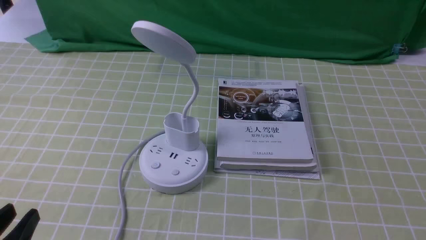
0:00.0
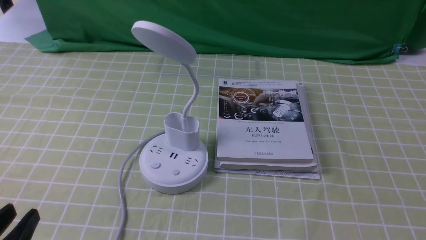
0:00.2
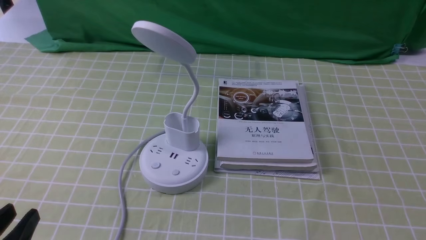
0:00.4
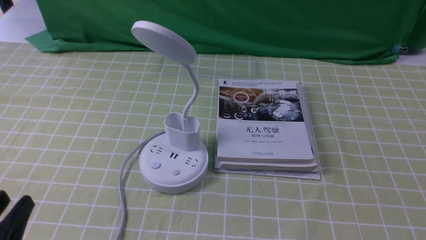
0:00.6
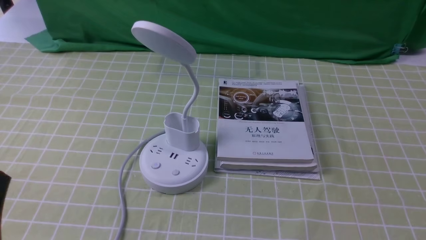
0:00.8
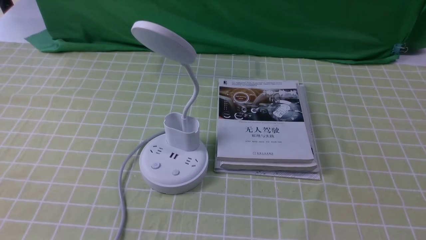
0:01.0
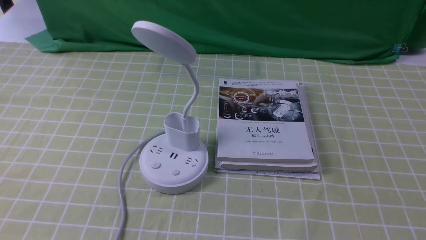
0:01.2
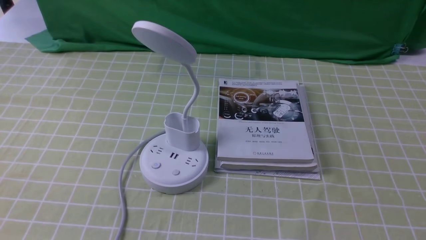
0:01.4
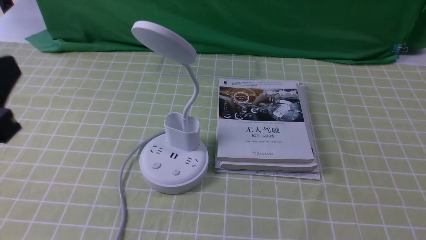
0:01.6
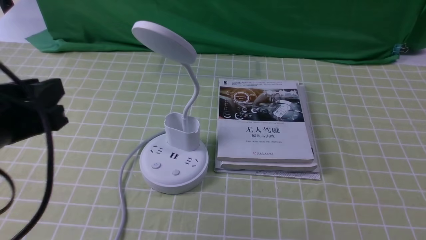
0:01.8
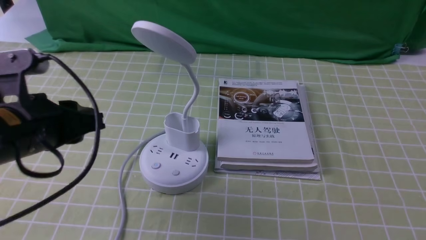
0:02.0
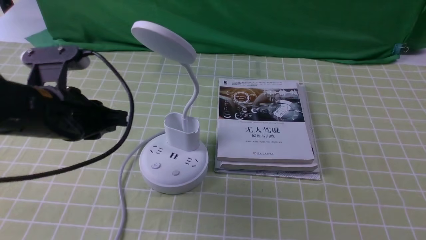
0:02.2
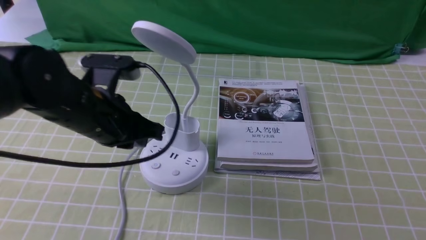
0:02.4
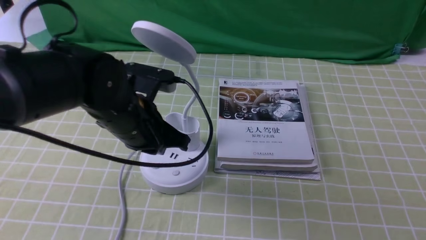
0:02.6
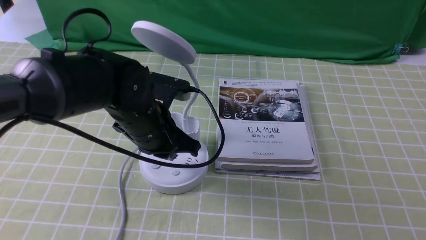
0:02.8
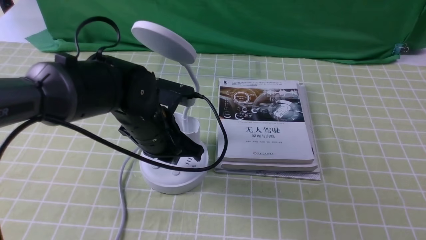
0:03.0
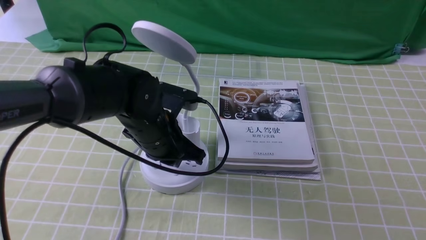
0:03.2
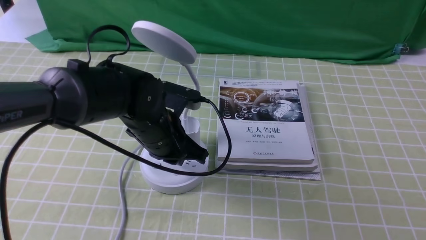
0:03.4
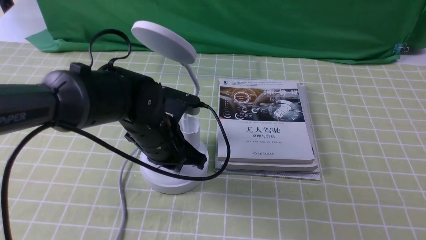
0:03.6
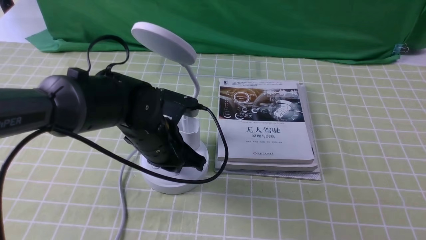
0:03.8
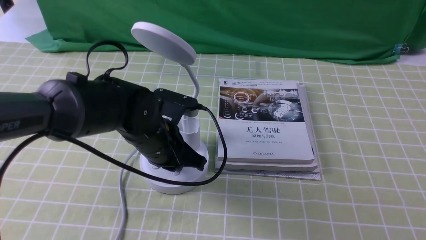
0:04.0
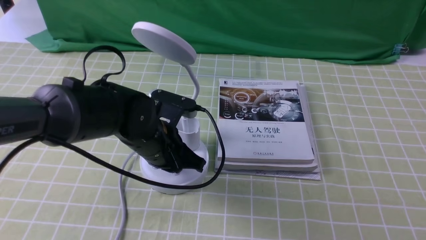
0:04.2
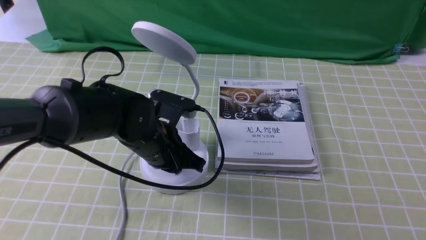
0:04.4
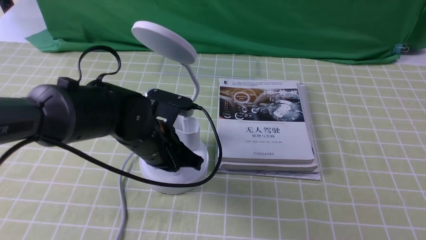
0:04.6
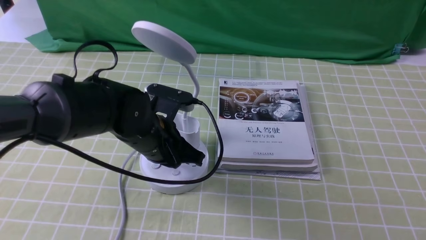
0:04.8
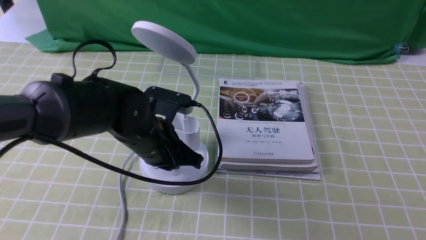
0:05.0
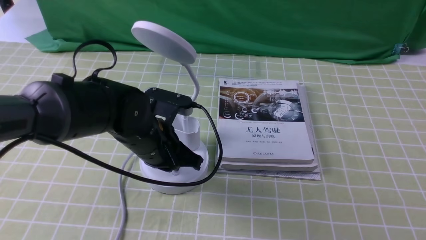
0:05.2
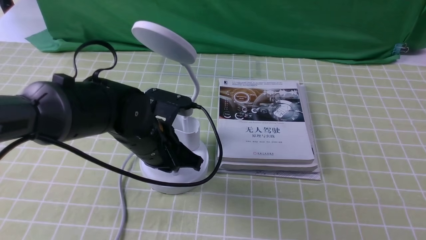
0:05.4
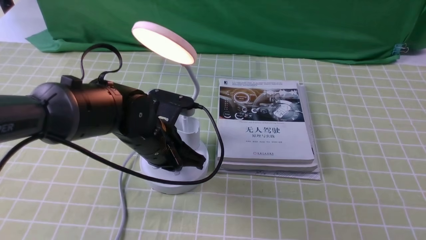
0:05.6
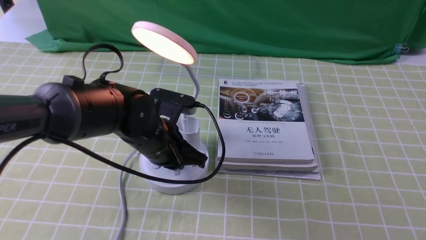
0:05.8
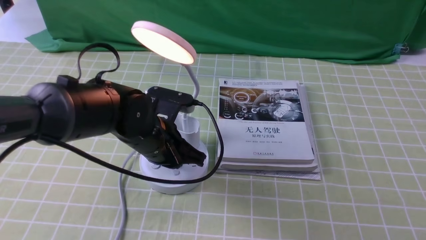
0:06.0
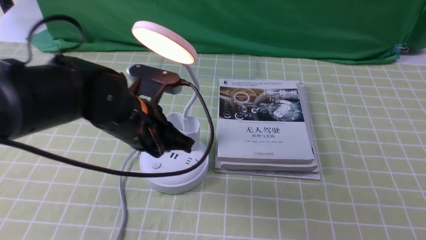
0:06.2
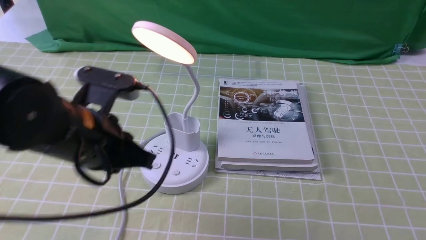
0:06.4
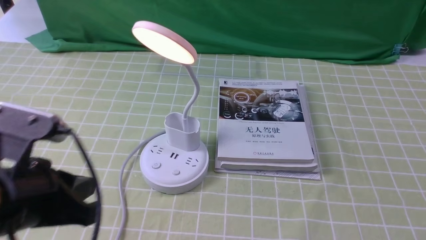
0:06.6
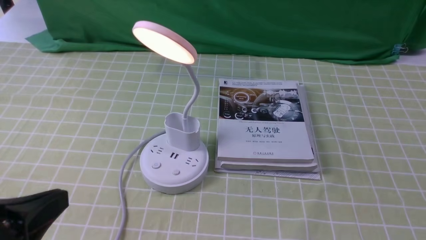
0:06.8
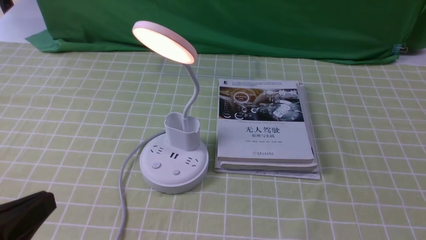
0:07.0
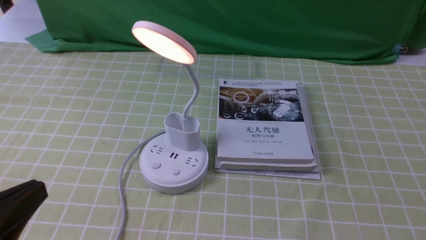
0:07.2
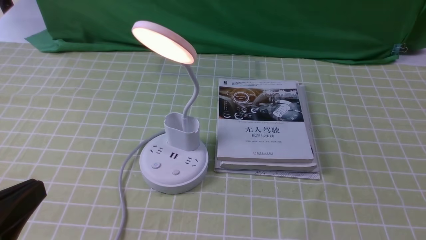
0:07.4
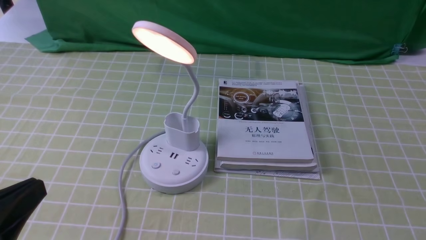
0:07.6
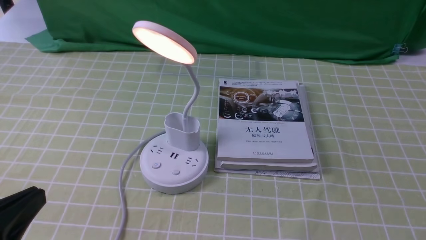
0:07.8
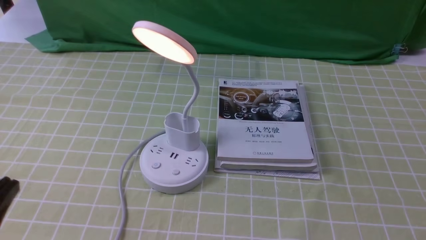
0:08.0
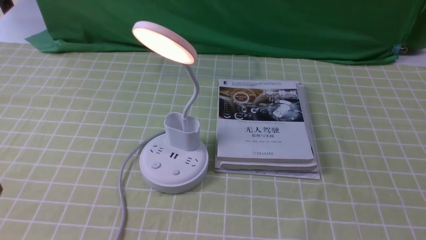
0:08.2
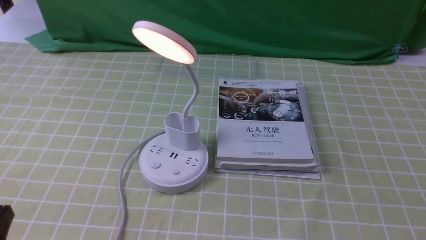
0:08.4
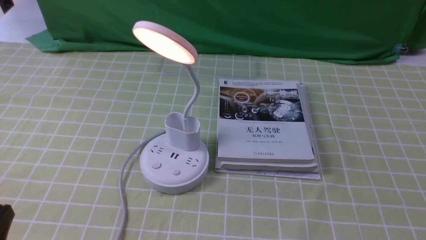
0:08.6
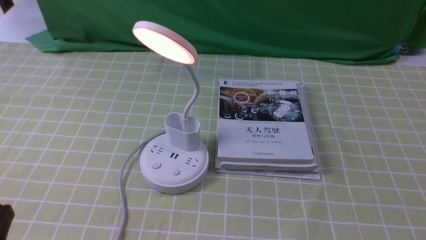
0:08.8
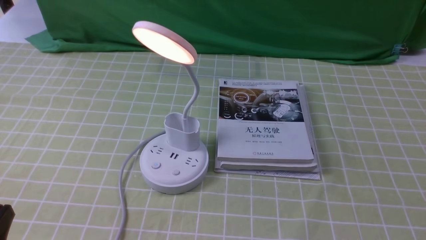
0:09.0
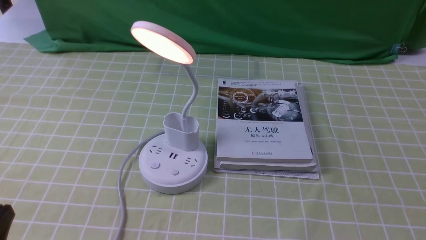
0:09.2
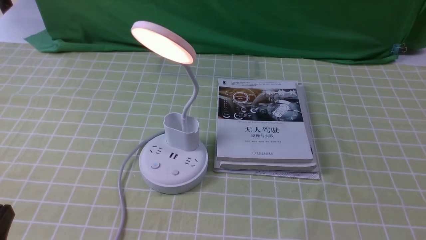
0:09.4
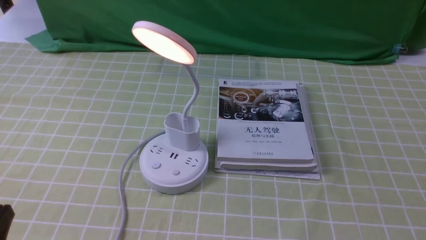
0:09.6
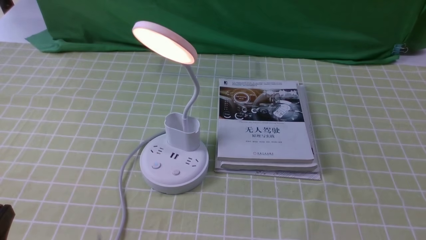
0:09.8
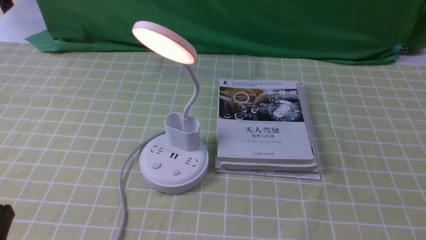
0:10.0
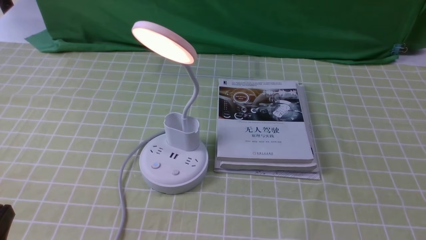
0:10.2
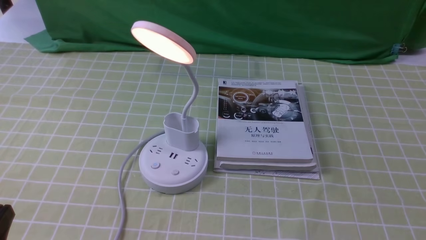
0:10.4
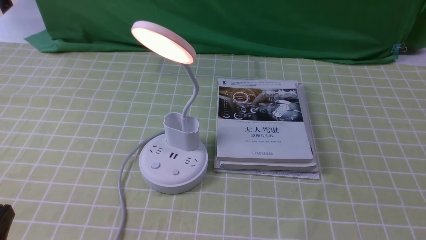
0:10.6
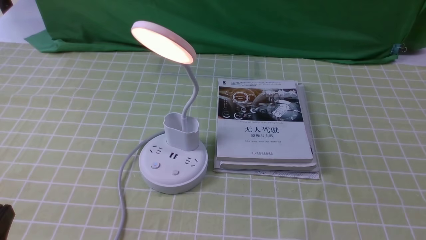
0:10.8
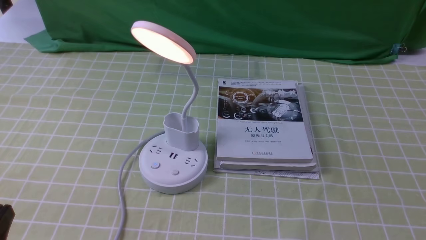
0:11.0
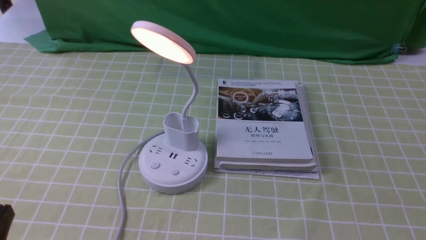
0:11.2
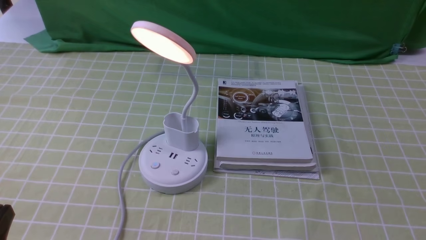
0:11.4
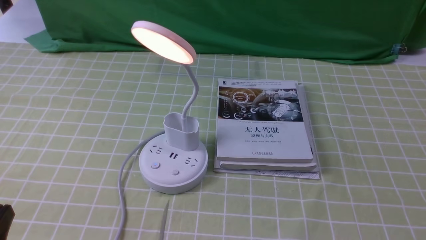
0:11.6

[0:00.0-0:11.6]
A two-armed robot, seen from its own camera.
Step, 0:00.0 to 0:05.8: use the left arm to press the button switch on the lamp holder.
0:01.4 to 0:02.8: The left gripper shifts approximately 30 cm forward, to the right and downward, and closes its fingers.
0:02.8 to 0:04.4: The left gripper travels downward by approximately 5 cm.
0:04.4 to 0:05.8: Both grippers stay about where they are.
0:05.8 to 0:07.2: The left gripper moves backward and to the left, some 30 cm.
0:07.2 to 0:08.8: The left gripper travels downward by about 10 cm.
0:08.8 to 0:11.6: The two grippers keep their place.
